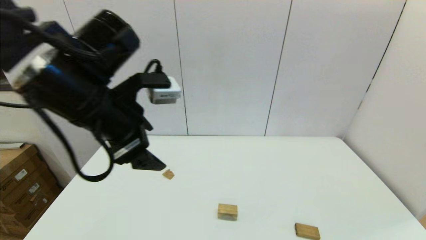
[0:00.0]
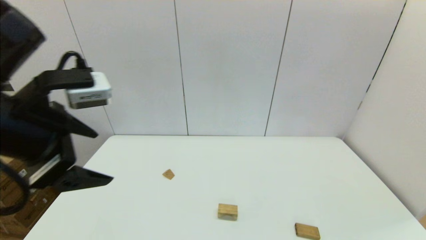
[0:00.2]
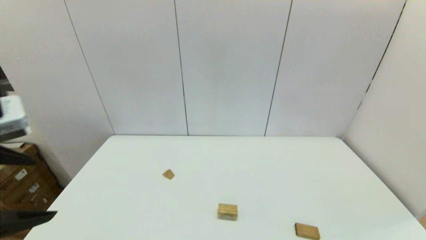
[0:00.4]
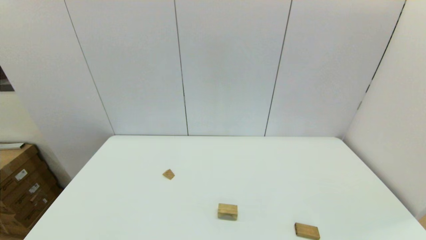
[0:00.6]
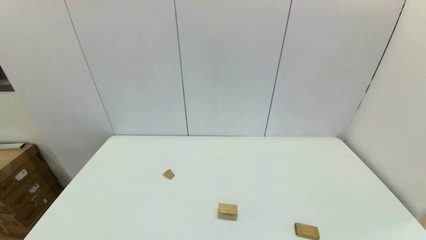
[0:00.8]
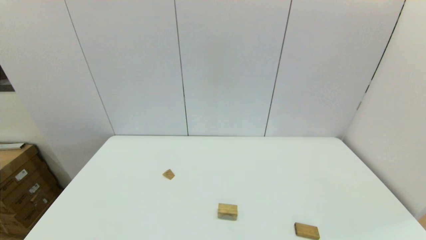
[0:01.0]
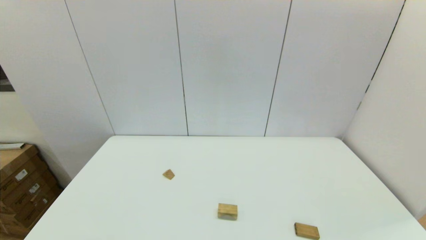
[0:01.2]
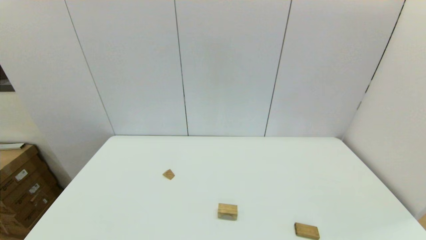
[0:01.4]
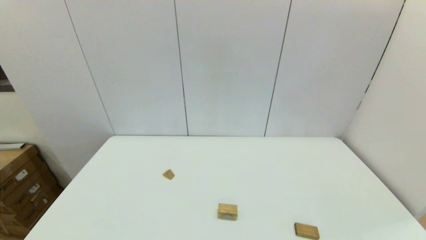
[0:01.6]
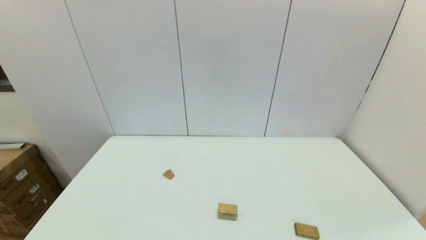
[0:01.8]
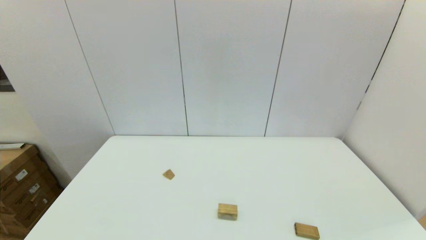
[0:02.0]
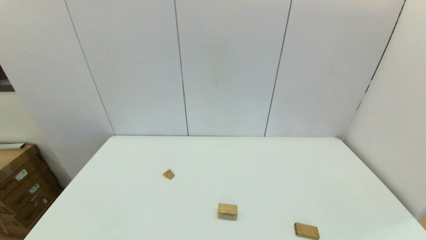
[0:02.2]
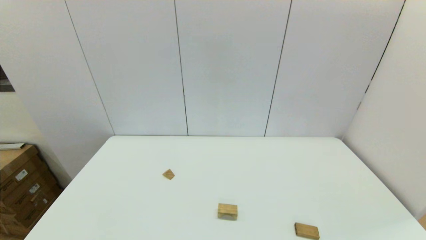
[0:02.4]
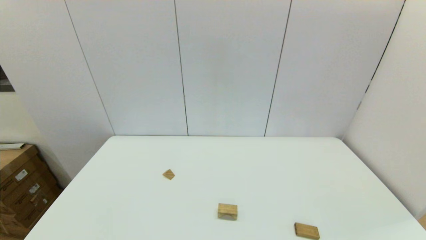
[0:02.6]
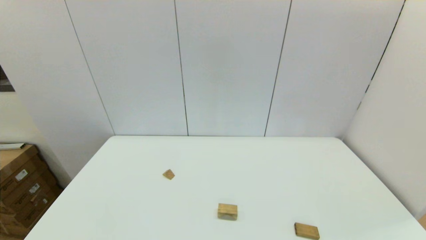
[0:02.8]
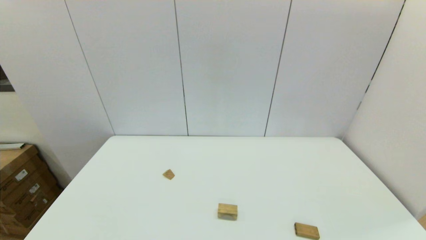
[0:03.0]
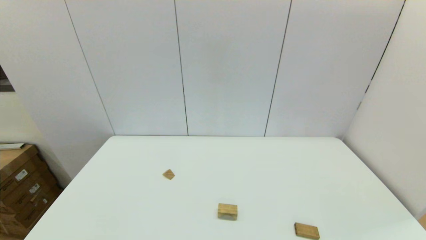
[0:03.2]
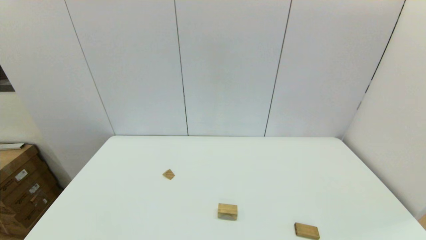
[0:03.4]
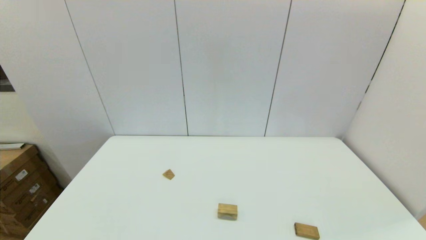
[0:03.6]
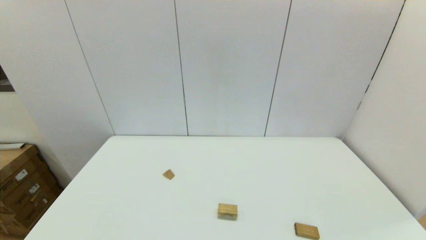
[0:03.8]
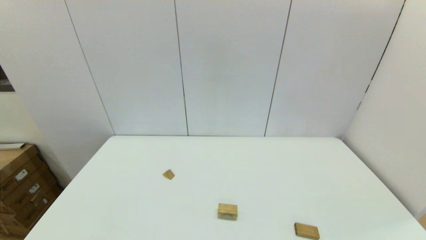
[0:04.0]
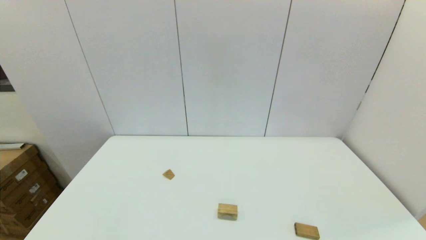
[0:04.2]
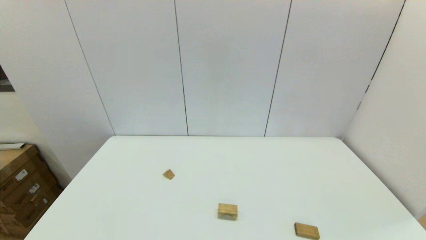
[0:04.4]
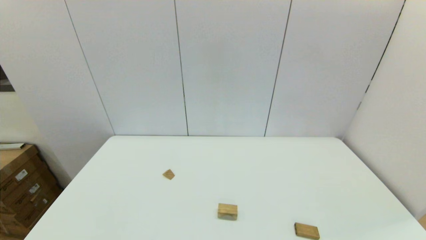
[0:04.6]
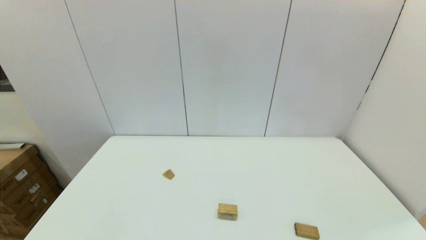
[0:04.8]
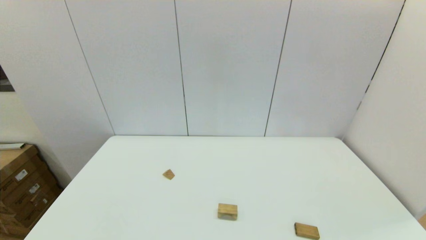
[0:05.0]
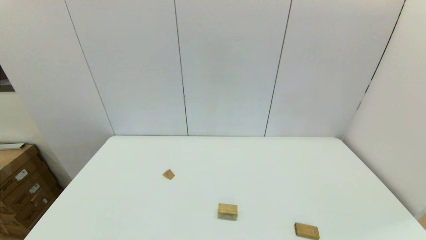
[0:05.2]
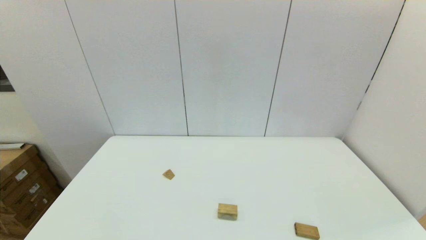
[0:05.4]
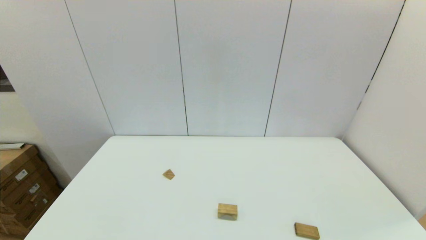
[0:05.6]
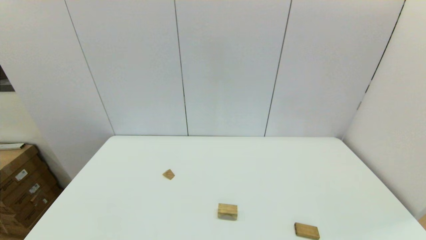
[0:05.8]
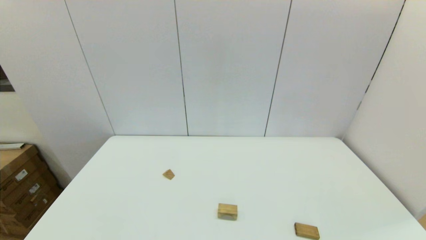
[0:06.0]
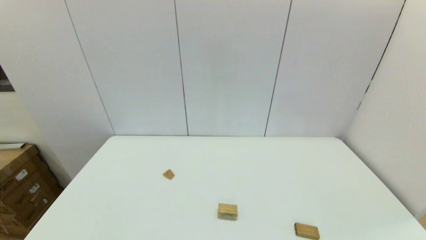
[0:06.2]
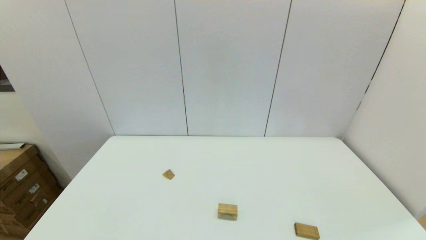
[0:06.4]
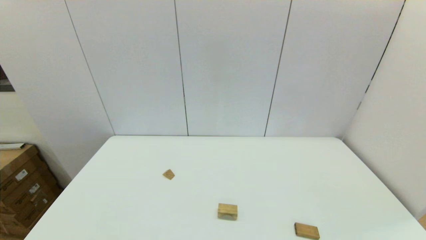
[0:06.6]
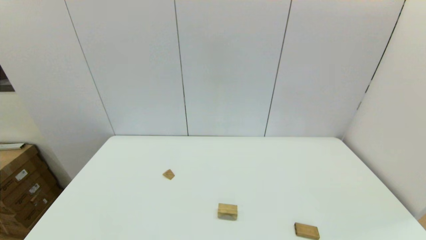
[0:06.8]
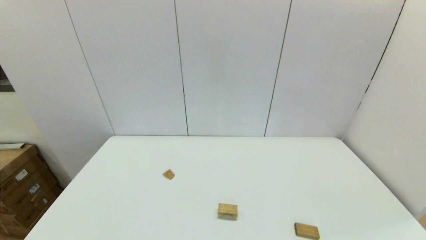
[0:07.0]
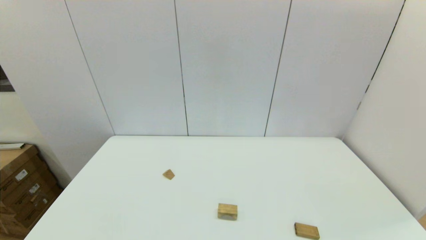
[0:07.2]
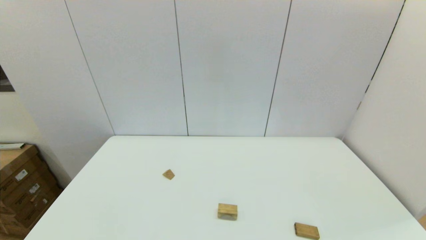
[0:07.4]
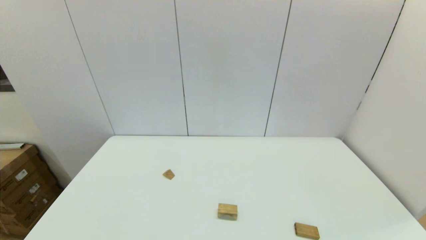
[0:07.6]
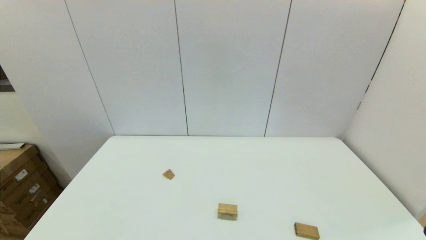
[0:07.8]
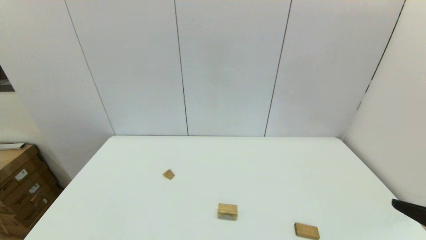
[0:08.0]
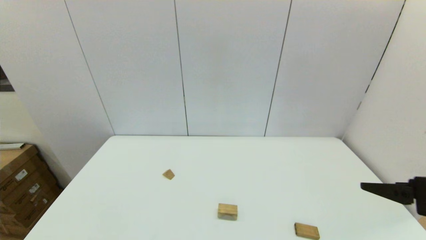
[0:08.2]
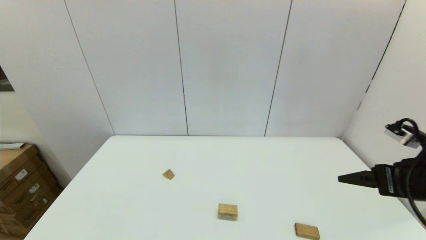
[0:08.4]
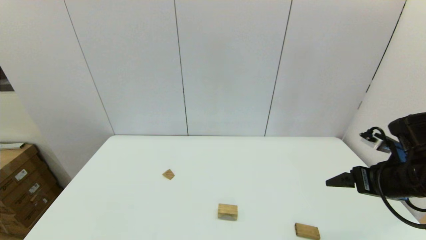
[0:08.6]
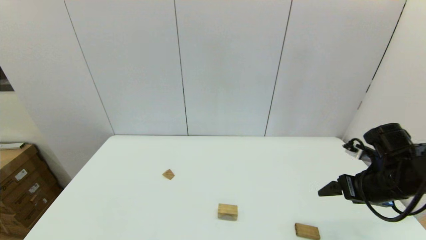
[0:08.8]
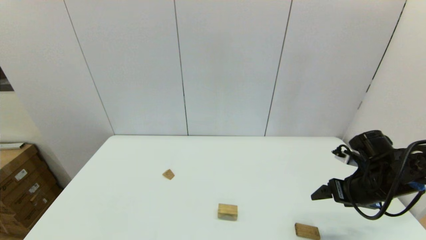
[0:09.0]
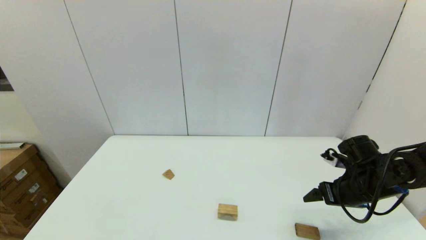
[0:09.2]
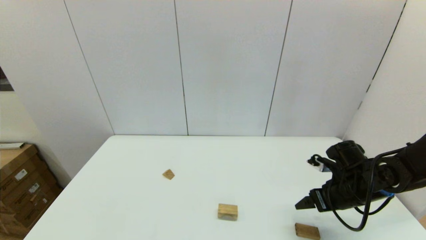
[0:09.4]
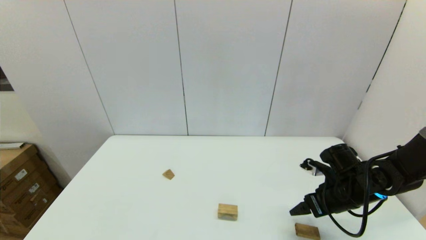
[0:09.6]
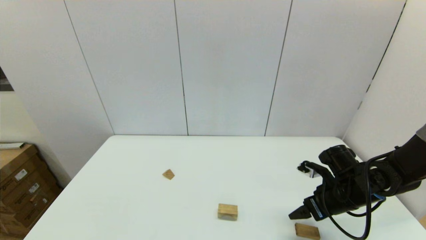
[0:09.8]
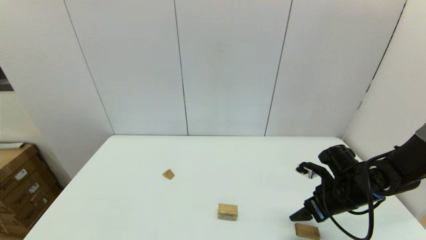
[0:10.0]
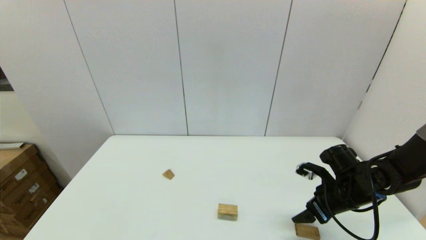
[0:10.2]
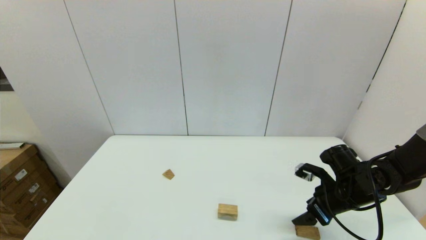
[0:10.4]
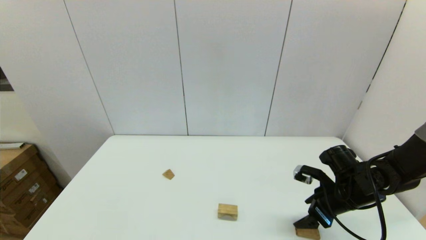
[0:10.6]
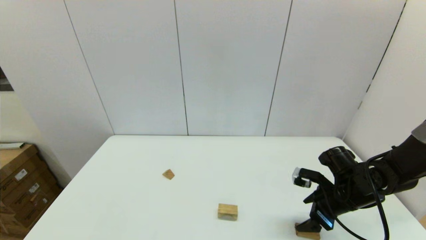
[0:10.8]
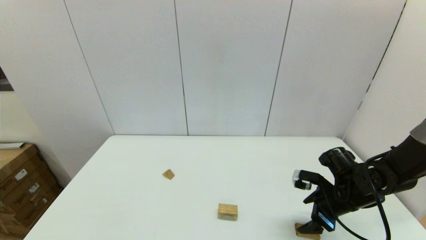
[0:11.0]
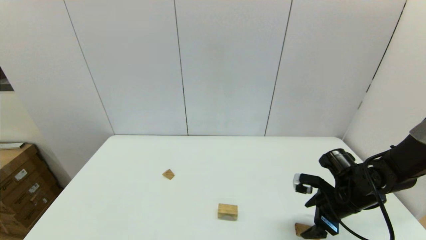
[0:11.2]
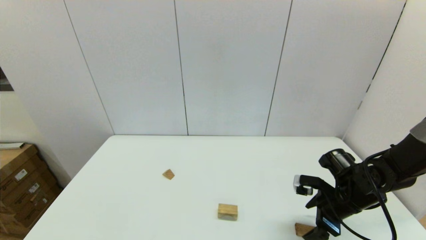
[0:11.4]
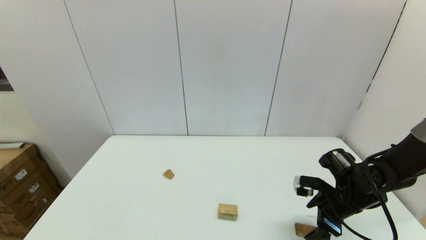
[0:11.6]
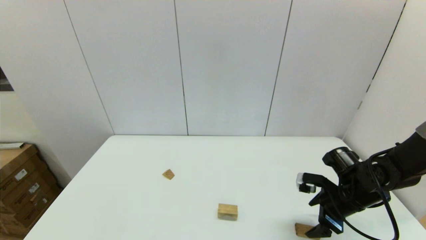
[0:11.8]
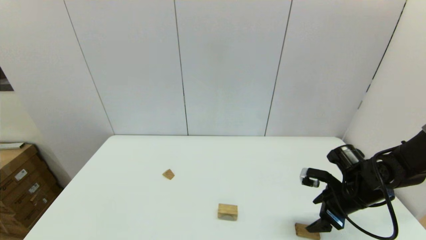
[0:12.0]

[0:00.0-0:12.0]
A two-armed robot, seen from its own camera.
Task of the whole recording: place the arched building blocks in the center of the table, set up the rectangular building blocks, and then set up the triangular building blocks.
0:00.0 to 0:01.6: The left gripper moves backward, to the left and downward, some 35 cm.
0:04.4 to 0:06.0: Both grippers stay put.
0:07.6 to 0:09.0: The right gripper shifts about 30 cm forward.
0:09.0 to 0:10.4: The right gripper ends up roughly 5 cm from where it was.

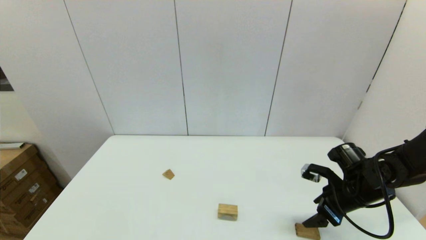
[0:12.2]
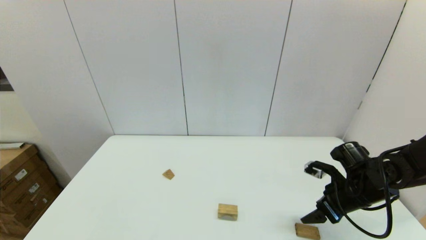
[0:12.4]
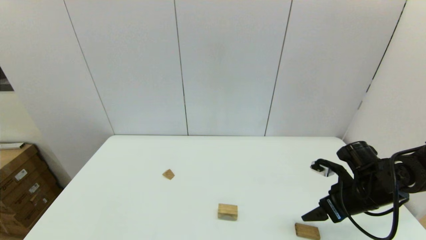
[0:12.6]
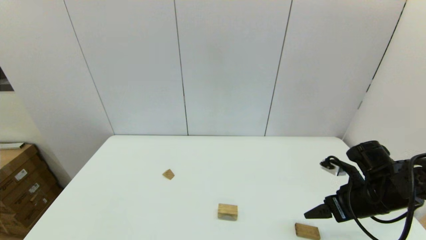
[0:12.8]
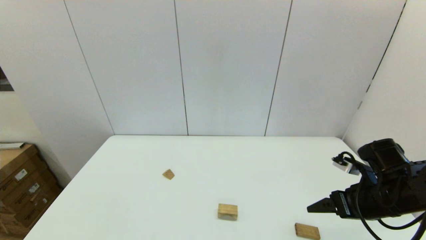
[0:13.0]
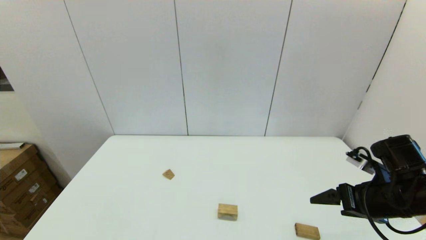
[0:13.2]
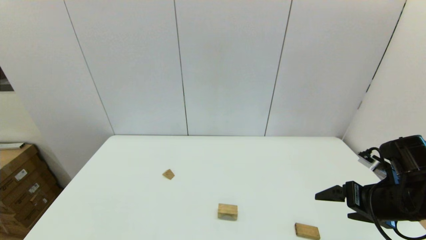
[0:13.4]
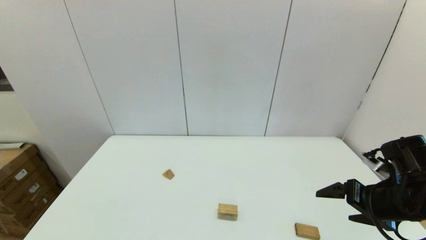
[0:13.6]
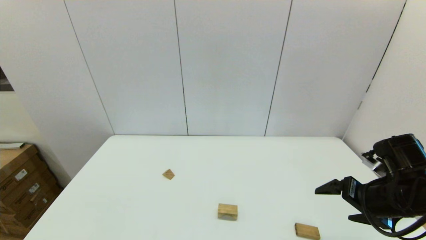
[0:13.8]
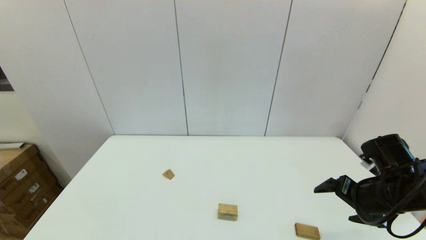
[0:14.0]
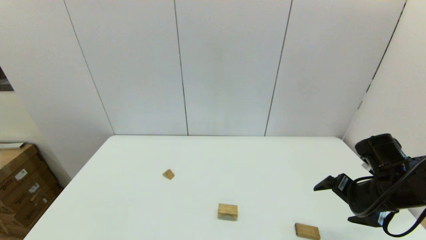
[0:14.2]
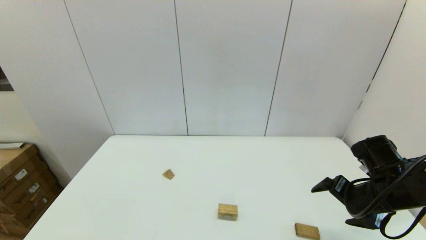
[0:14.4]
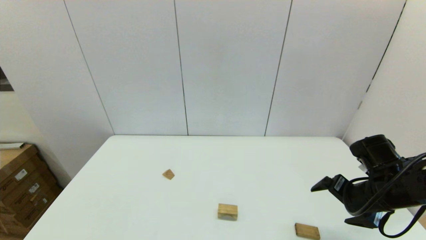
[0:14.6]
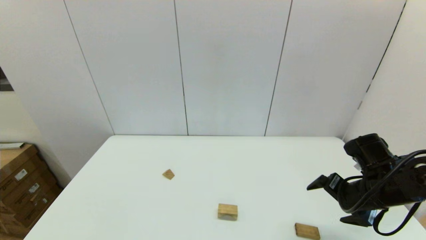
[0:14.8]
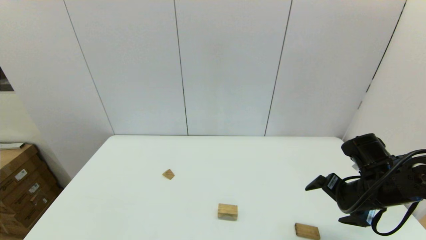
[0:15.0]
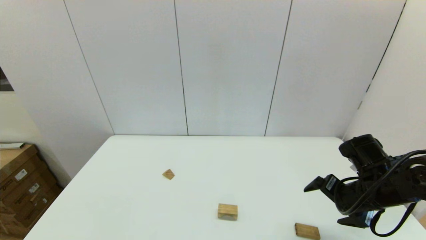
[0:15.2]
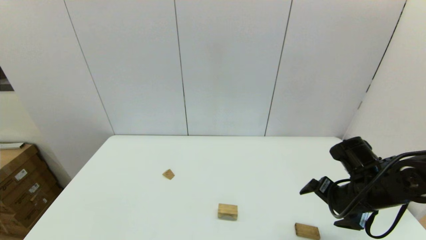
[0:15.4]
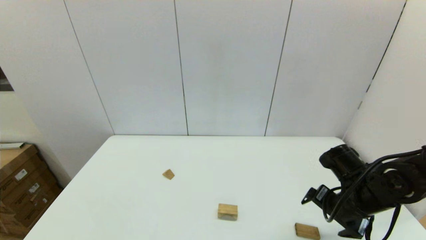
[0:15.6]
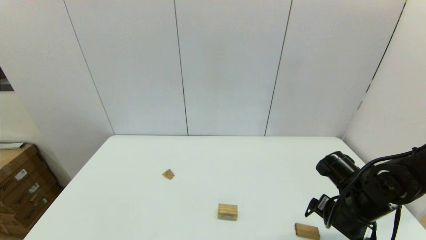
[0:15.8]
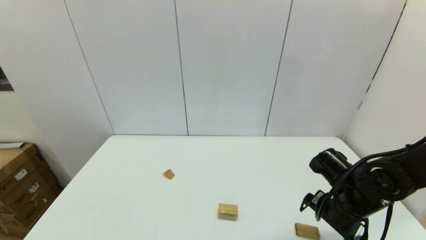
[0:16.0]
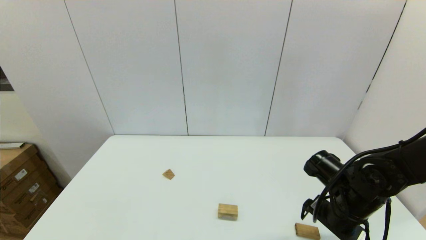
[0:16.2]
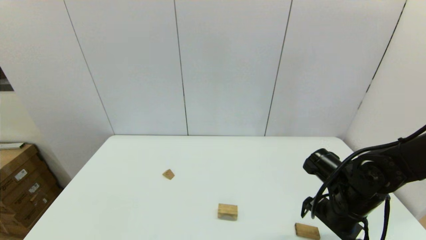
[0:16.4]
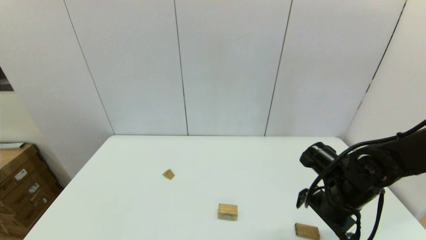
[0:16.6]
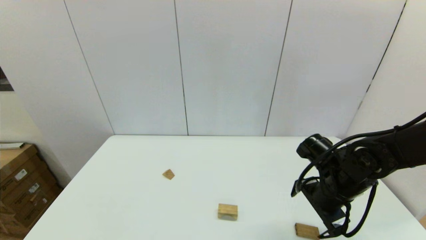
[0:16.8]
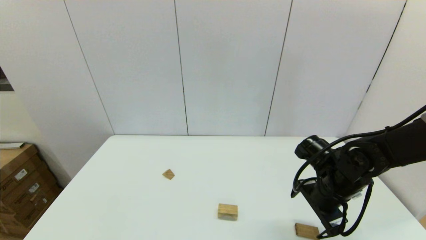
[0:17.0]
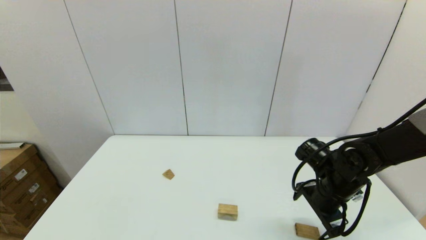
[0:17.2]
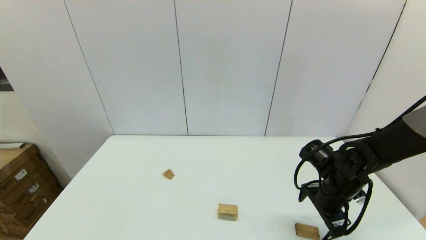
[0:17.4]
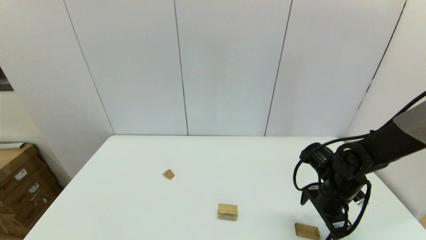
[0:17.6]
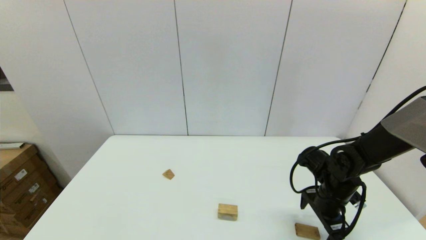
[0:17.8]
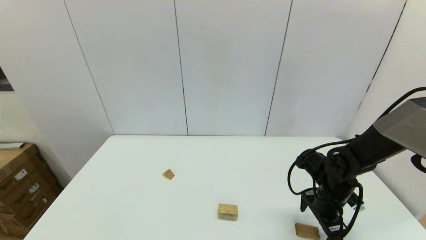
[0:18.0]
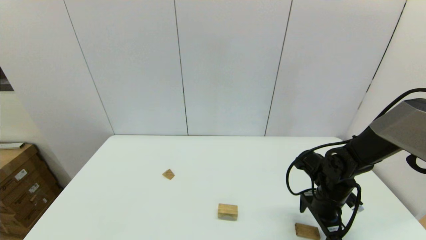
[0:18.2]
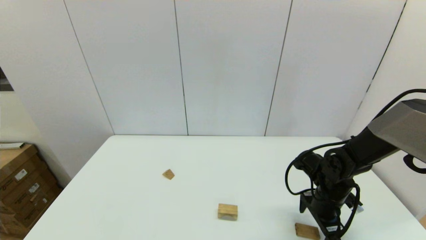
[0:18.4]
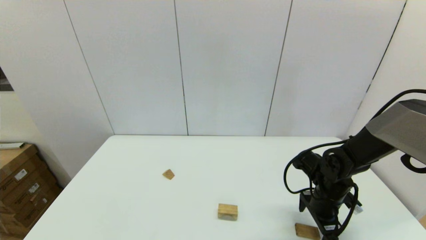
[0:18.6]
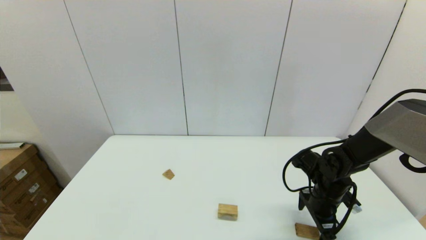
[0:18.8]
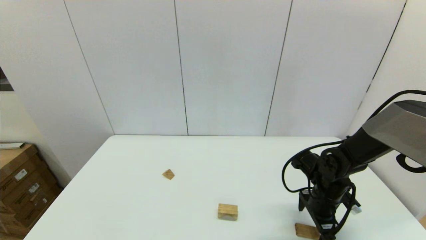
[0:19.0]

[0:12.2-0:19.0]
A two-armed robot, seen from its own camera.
Task of the whole recording: place the arched building blocks in the center of the table, set up the rectangular building blocks, and then set up the triangular building blocks.
0:12.2 to 0:13.6: The right gripper is displaced upward and backward by roughly 10 cm.
0:13.6 to 0:15.0: The right gripper shifts by roughly 5 cm.
0:15.0 to 0:16.2: The right gripper ends up about 5 cm from where it was.
0:16.2 to 0:17.6: The right gripper travels forward by about 5 cm.
0:17.6 to 0:19.0: The grippers move only a little.
